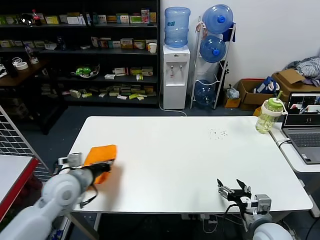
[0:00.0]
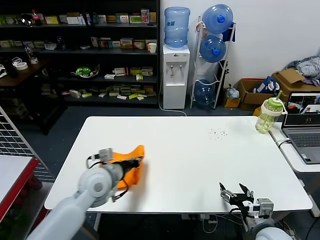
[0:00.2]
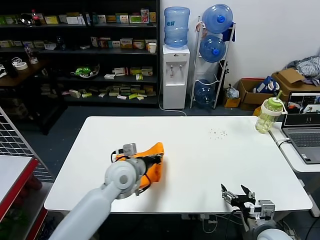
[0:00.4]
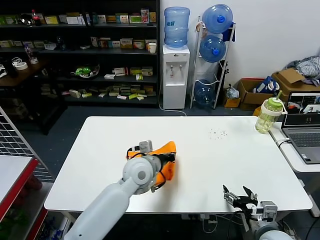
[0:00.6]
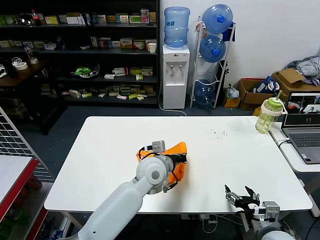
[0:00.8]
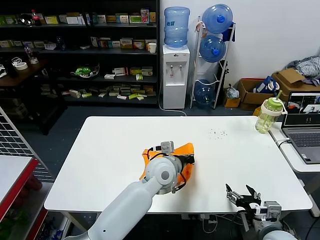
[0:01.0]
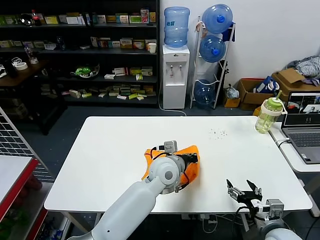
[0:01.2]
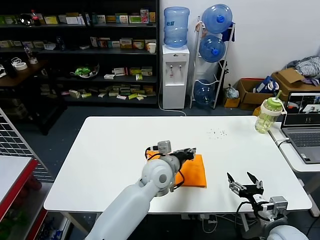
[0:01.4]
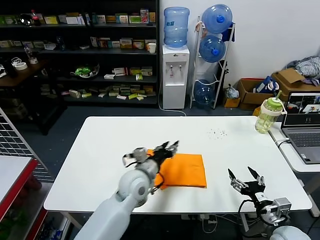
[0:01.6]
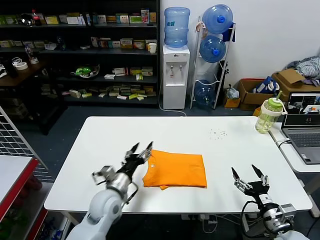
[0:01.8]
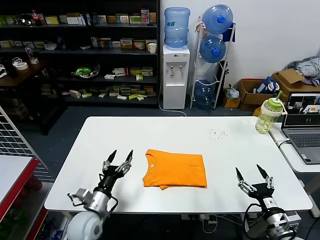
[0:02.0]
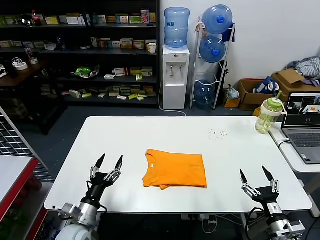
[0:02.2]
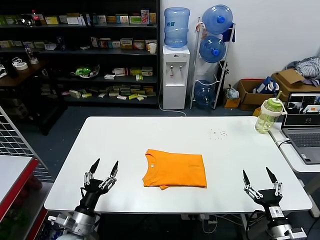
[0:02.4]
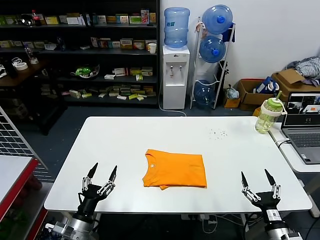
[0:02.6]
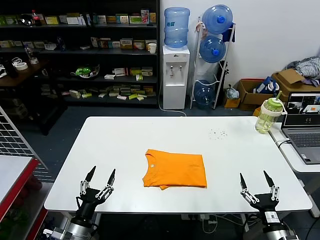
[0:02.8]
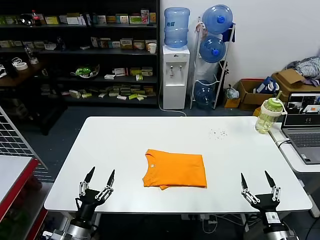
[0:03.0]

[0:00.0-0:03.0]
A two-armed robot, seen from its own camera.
Task of the whole recording: fold and organize the clothes.
0:00.0 to 0:01.6: The left gripper travels to the right by roughly 25 cm, and opens.
0:01.6 to 0:03.0: The left gripper goes roughly 35 cm to the left, backward and downward, and opens its fingers. The right gripper shifts about 10 cm downward and backward.
